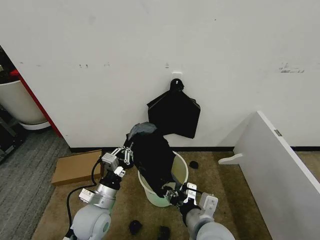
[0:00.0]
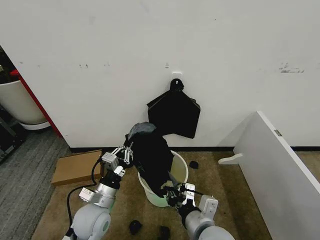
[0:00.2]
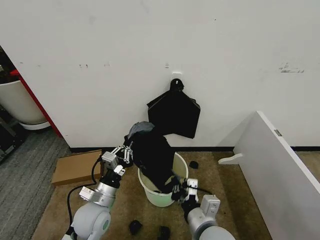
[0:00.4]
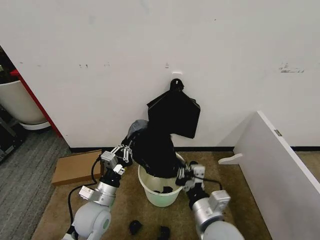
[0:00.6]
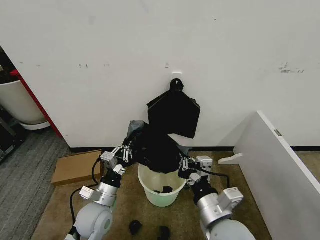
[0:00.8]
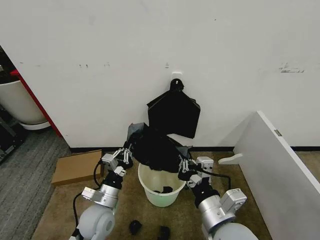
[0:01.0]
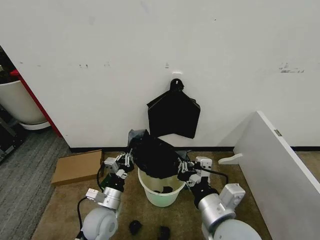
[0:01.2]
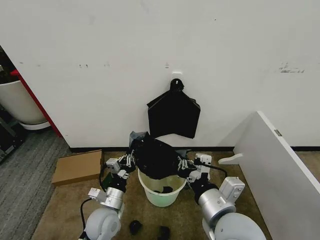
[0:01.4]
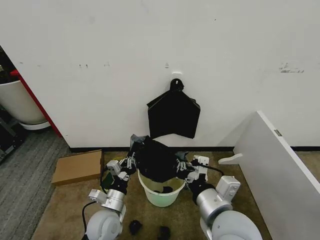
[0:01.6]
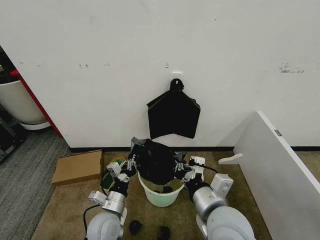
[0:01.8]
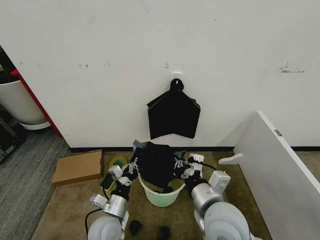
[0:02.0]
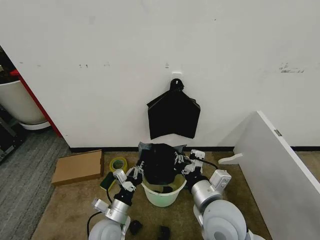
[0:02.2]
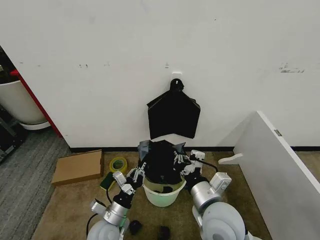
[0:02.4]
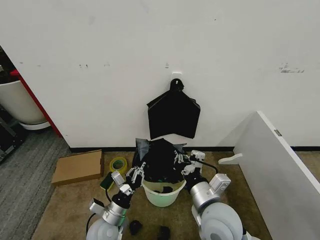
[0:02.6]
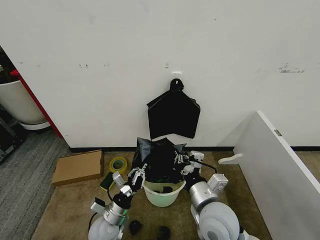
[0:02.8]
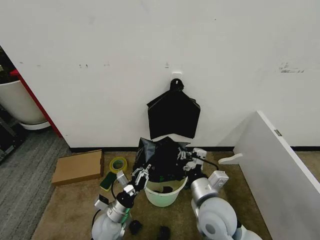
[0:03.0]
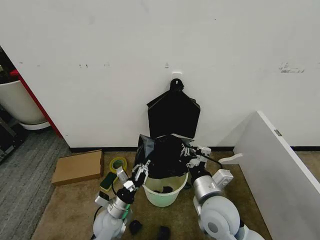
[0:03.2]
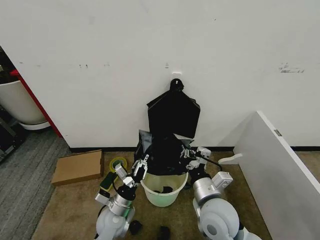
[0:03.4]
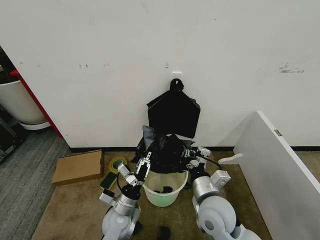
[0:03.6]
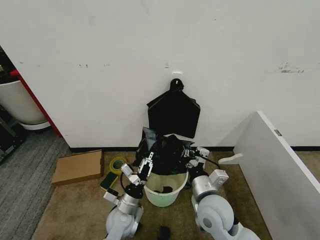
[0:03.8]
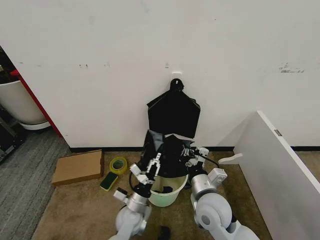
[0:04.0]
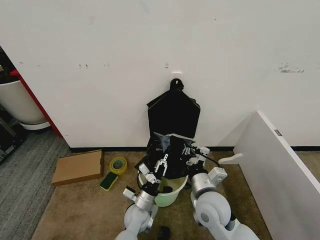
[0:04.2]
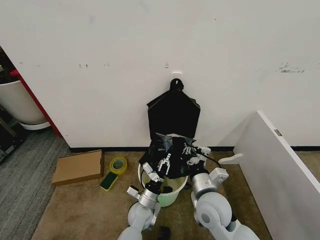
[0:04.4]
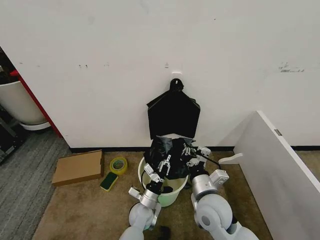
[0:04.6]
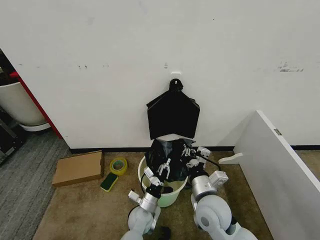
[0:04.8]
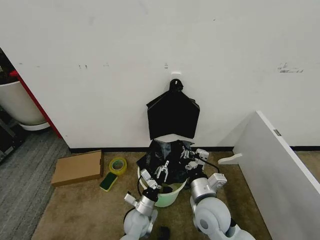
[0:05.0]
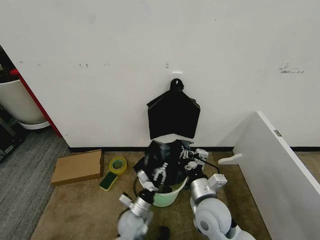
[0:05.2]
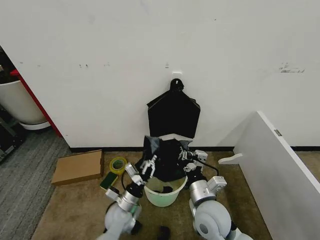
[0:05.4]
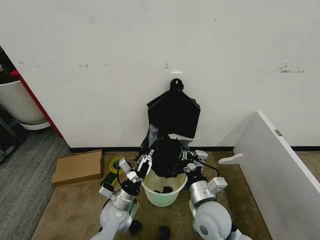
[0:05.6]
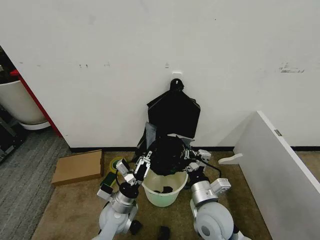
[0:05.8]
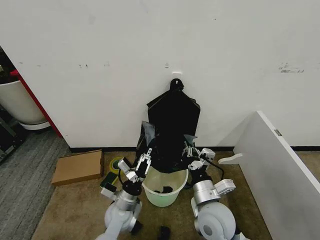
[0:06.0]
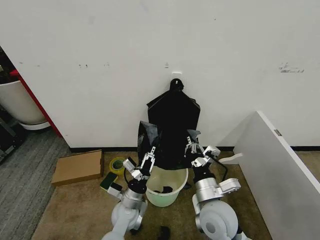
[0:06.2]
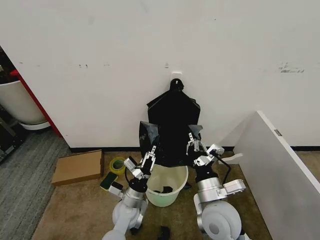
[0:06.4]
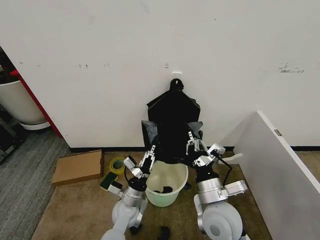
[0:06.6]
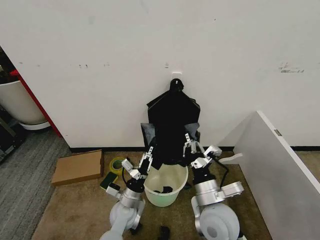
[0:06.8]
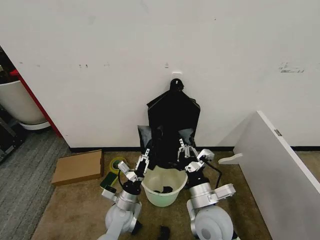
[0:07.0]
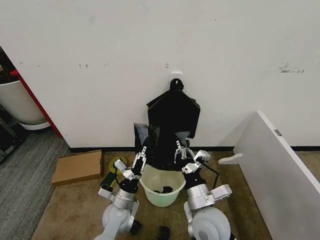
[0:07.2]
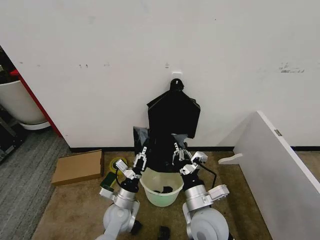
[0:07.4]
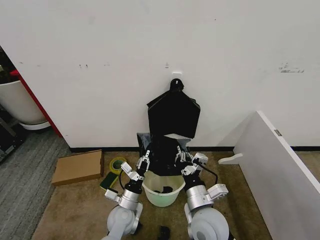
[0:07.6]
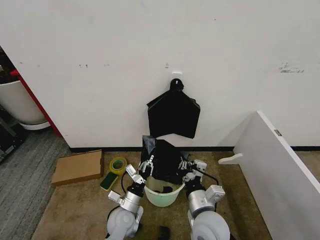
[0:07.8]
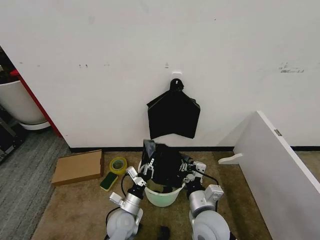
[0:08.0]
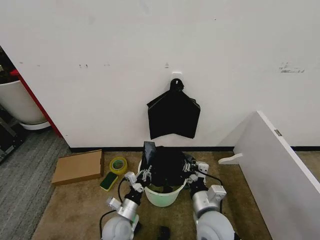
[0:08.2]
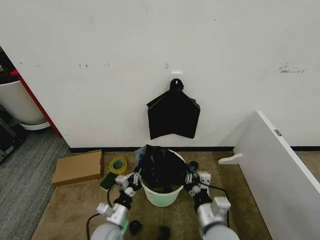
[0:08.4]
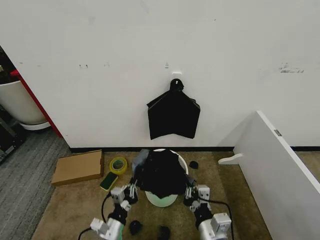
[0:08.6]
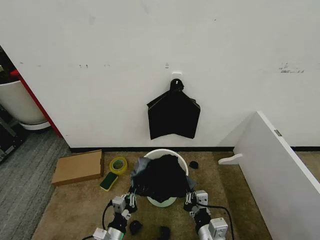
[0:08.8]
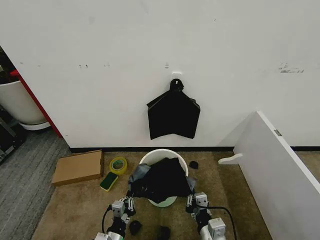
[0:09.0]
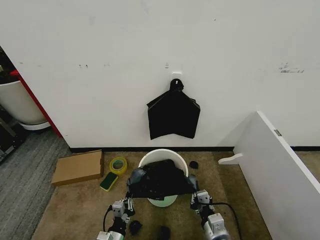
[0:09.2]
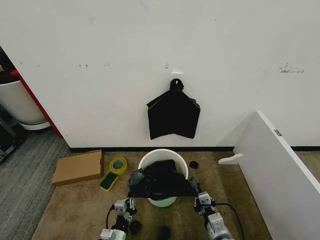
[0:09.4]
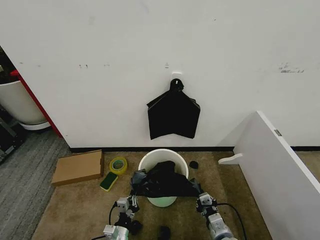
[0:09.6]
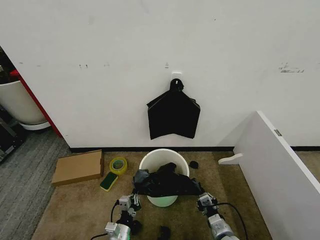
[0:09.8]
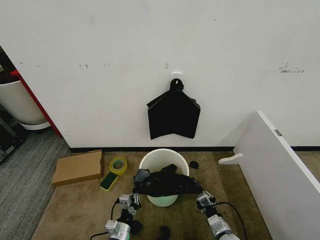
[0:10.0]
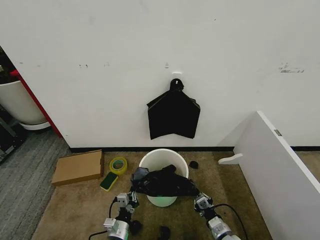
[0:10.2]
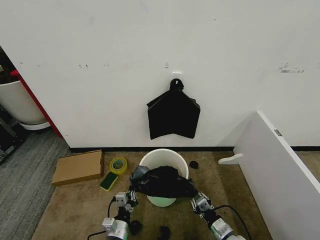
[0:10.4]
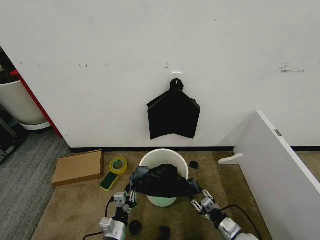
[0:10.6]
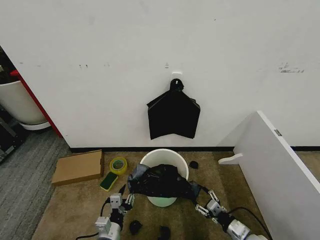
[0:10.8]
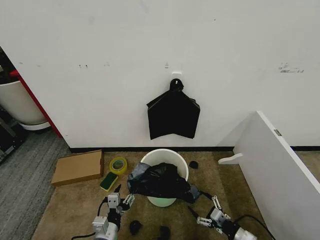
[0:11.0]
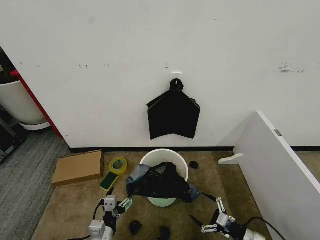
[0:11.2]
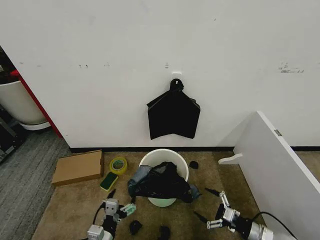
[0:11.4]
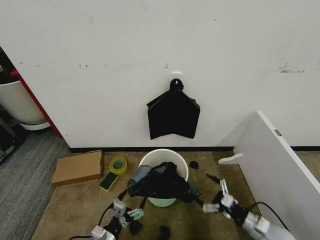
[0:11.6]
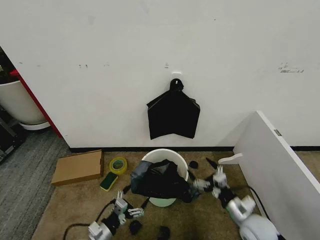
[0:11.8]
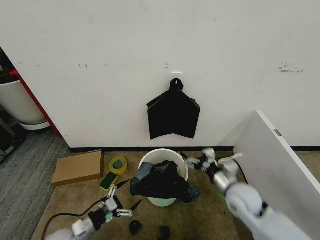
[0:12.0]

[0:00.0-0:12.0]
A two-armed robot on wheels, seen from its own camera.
Task of the whole recording: Place the garbage bag over the trash bin.
0:00.0 to 0:01.6: The right gripper travels upward by some 10 cm, and closes its fingers. The left gripper shifts by approximately 5 cm.
0:01.6 to 0:03.0: The right gripper travels downward and forward by roughly 10 cm; the left gripper travels downward by about 5 cm.
0:03.0 to 0:04.4: The left gripper travels to the right by roughly 10 cm.
0:04.4 to 0:06.0: The left gripper travels upward and to the left by about 10 cm.
0:06.0 to 0:07.6: There are only small adjustments of the grippers.
0:07.6 to 0:09.0: The right gripper goes about 10 cm backward and downward. The left gripper goes roughly 15 cm backward.
0:09.0 to 0:10.4: The right gripper heads downward and to the right, covering some 15 cm.
0:10.4 to 0:12.0: The right gripper travels upward and forward by about 20 cm, and opens. The left gripper heads to the left, covering roughly 15 cm, and opens up.

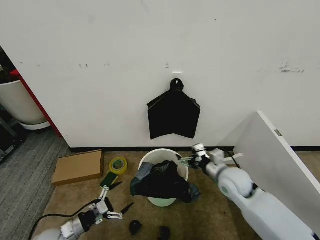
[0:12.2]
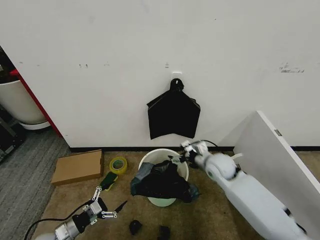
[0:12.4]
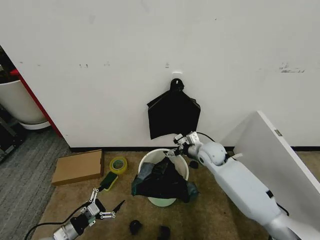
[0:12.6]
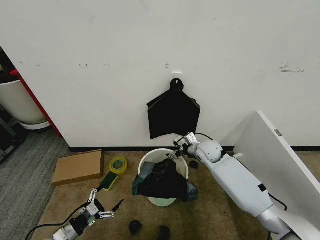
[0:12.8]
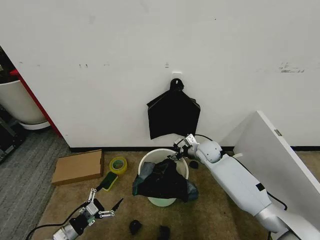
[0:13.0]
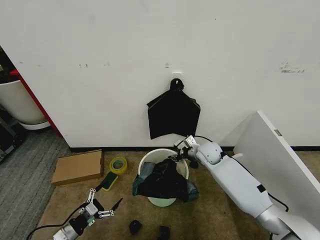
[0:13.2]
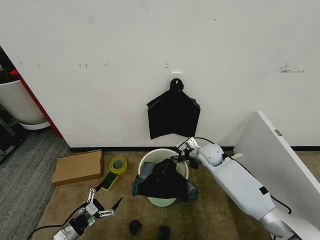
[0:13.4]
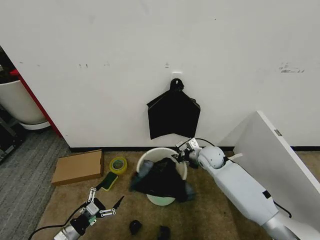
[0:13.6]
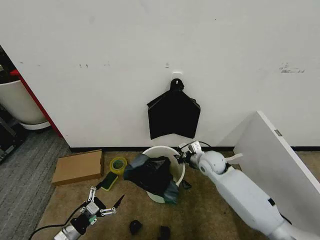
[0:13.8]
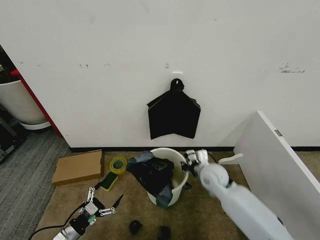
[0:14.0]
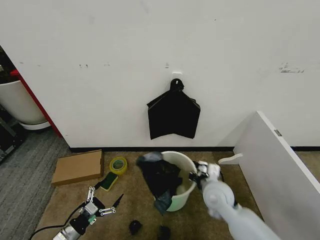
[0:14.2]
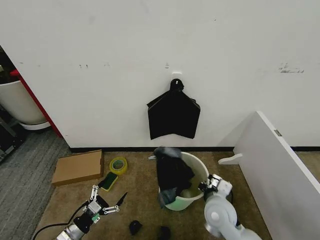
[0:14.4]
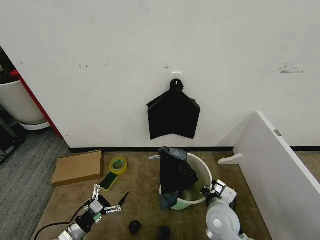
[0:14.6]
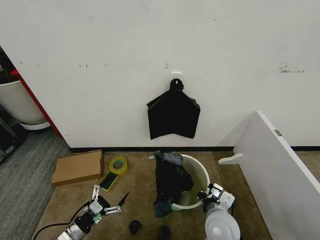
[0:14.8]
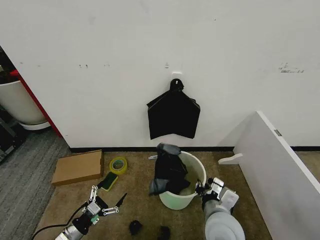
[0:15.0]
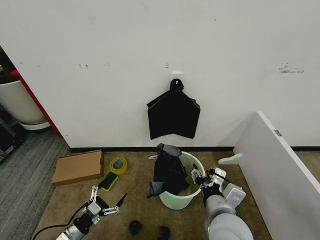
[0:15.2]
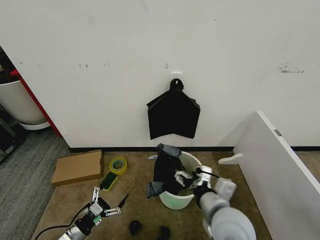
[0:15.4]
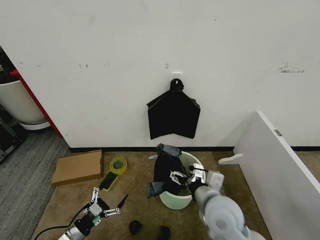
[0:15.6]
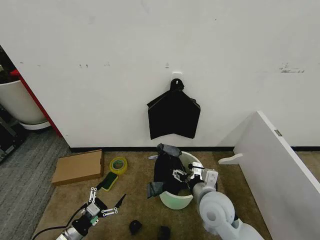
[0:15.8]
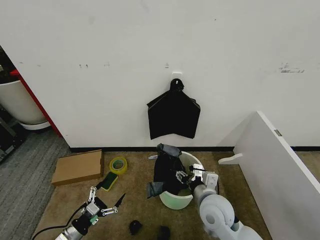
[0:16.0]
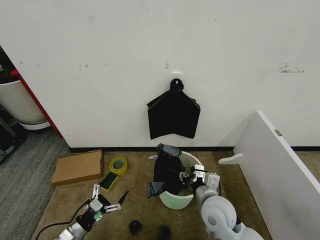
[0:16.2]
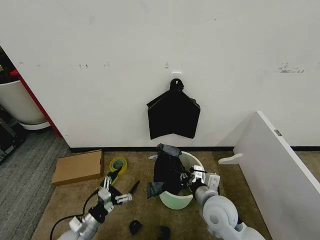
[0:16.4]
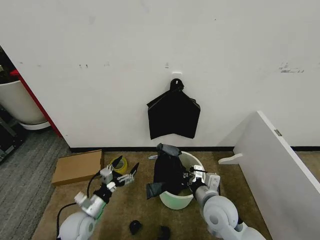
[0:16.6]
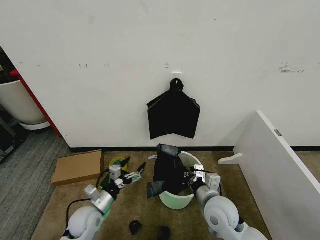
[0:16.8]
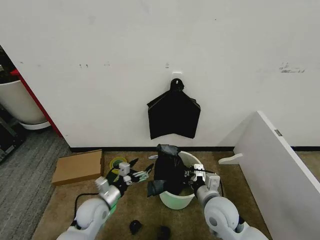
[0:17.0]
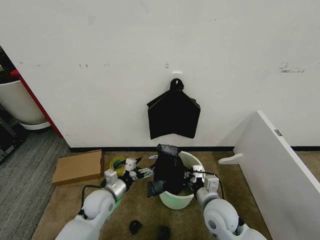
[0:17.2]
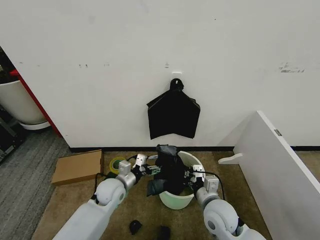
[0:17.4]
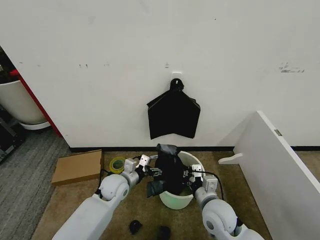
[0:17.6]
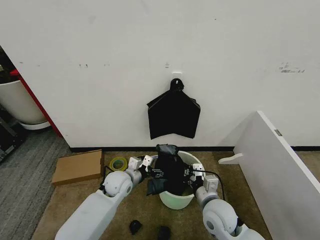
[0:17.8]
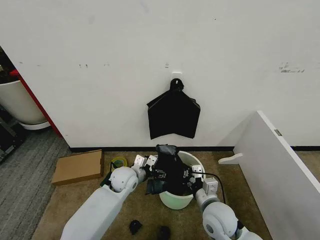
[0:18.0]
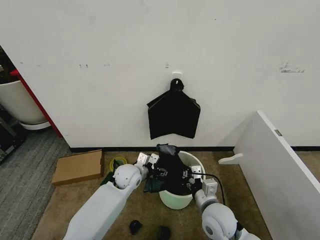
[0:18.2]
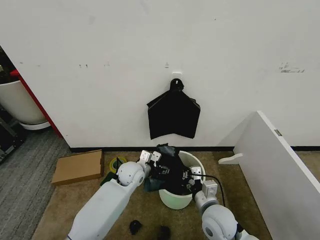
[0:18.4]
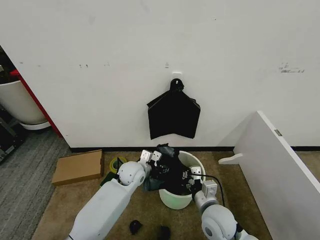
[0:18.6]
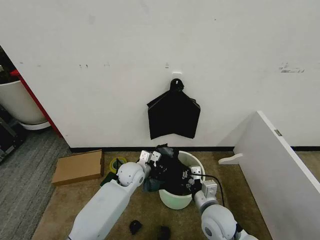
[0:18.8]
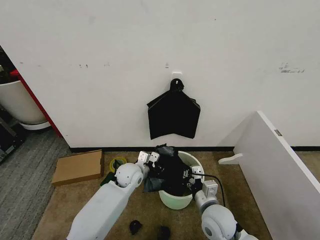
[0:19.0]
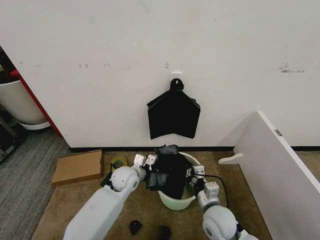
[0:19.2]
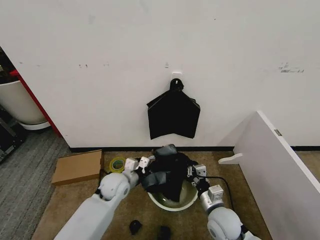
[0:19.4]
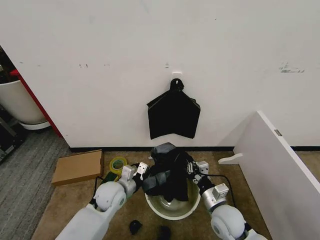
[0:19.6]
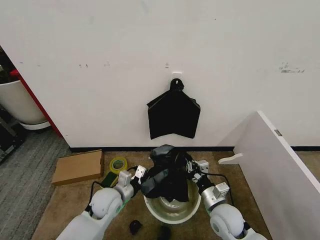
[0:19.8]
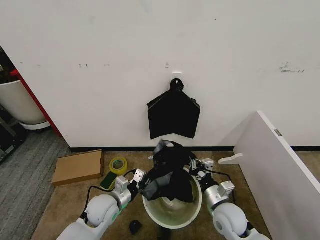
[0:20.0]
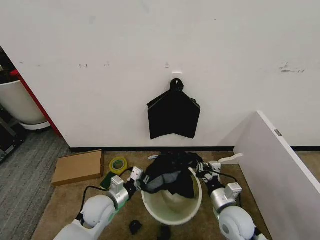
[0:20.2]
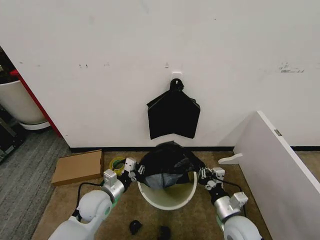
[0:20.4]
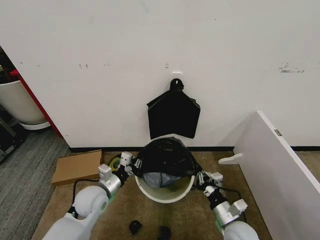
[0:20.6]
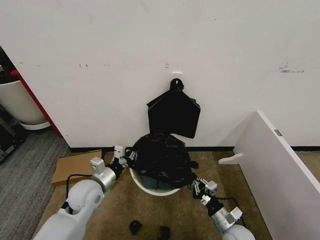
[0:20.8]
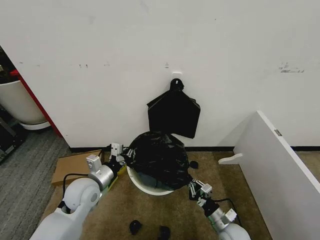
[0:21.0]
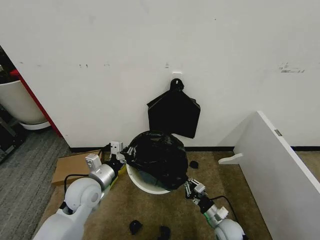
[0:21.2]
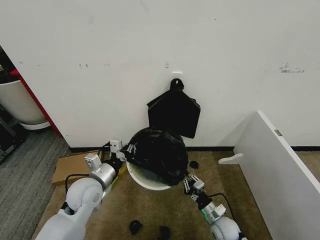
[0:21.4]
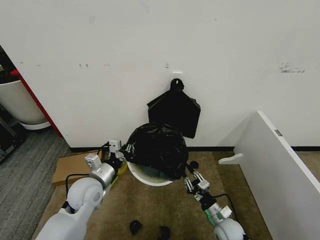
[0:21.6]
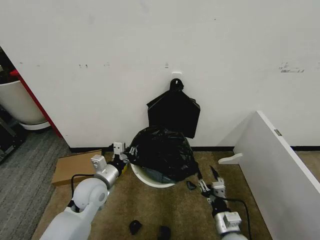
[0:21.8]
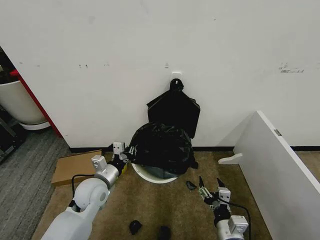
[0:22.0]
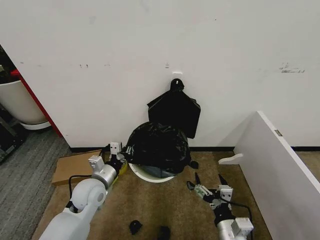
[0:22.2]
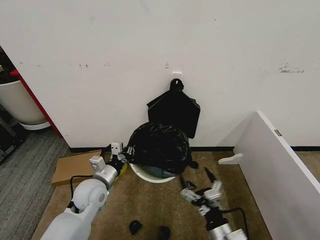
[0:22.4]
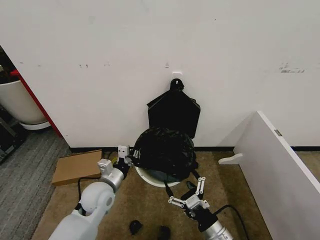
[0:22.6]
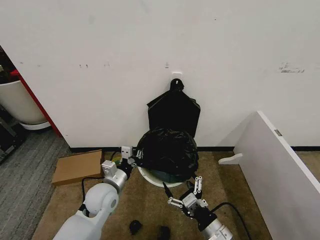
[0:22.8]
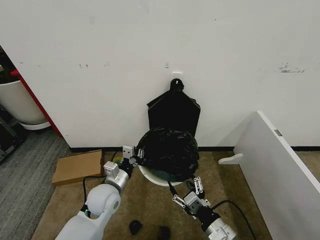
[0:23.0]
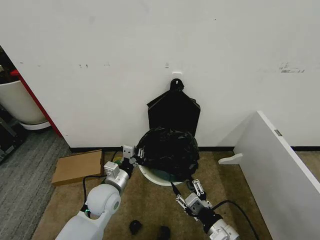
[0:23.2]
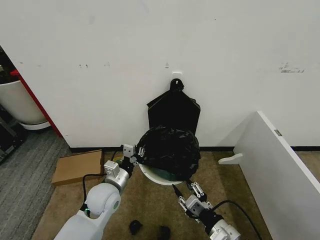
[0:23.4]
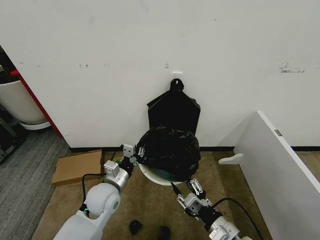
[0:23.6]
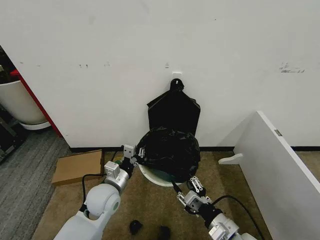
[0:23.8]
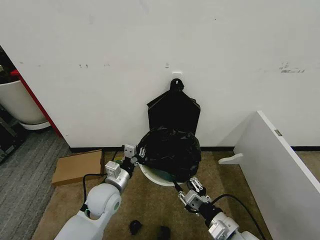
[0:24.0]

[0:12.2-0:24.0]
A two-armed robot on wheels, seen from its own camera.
Task of the whole recording: Place the garbage bag over the trash bin.
0:12.2 to 0:13.6: The right gripper moves forward, about 10 cm, and closes.
0:13.6 to 0:15.2: The right gripper travels backward by roughly 30 cm, and opens up.
0:15.2 to 0:16.6: The left gripper heads to the right and forward, covering approximately 10 cm. Meanwhile the right gripper shifts roughly 10 cm downward and forward, and closes.
0:16.6 to 0:18.2: The left gripper is displaced forward and to the right by some 20 cm.
0:18.2 to 0:19.6: The right gripper changes place by roughly 5 cm; the left gripper heads backward and to the left, covering roughly 10 cm, and closes its fingers.
0:19.6 to 0:21.0: The right gripper moves downward, some 10 cm, while the left gripper moves upward and to the left, some 10 cm.
0:21.0 to 0:22.6: The right gripper travels upward, backward and to the left by roughly 15 cm, and opens its fingers.
0:22.6 to 0:24.0: The right gripper shifts by some 5 cm, and closes.
